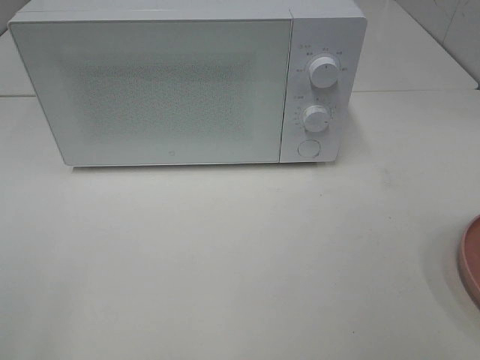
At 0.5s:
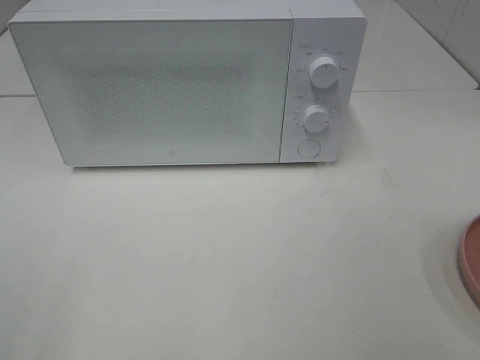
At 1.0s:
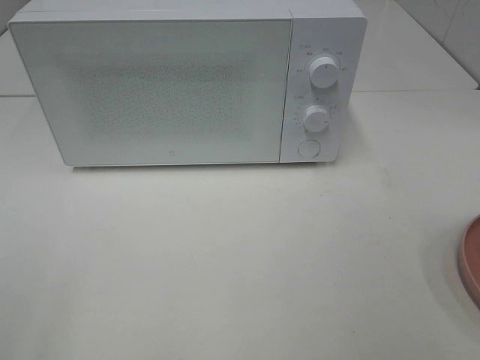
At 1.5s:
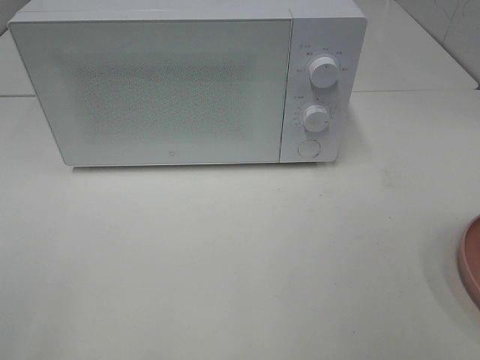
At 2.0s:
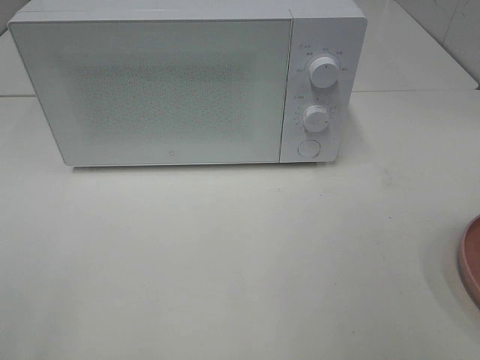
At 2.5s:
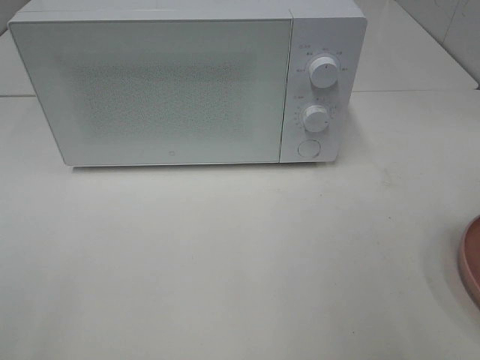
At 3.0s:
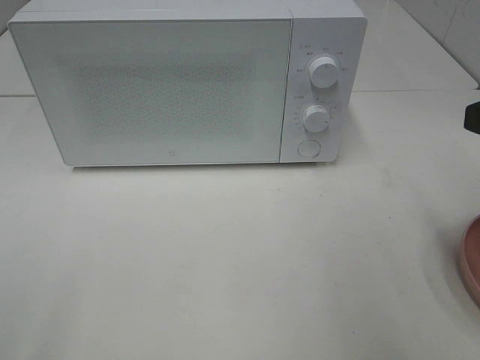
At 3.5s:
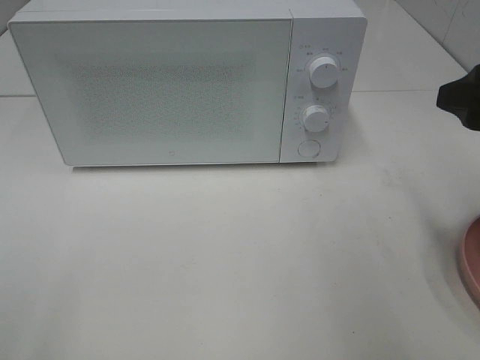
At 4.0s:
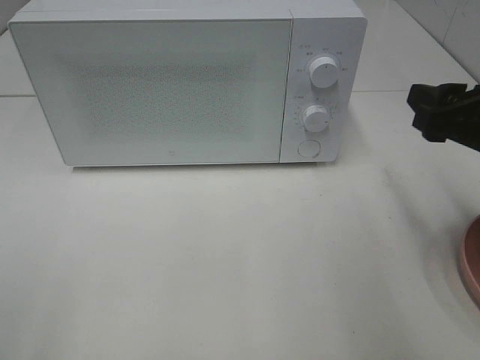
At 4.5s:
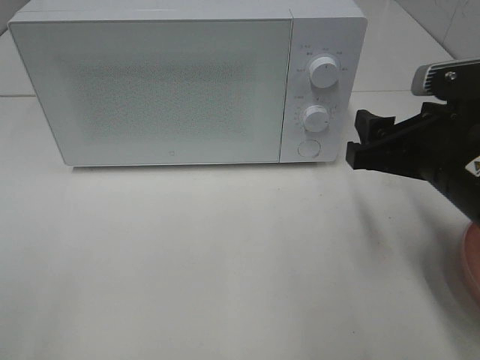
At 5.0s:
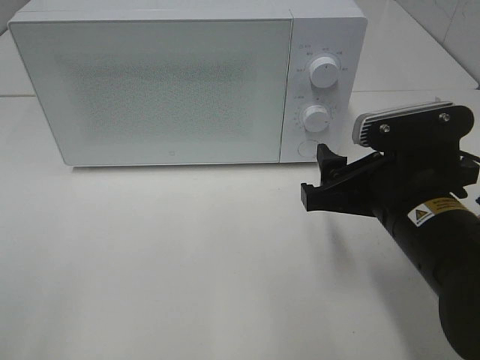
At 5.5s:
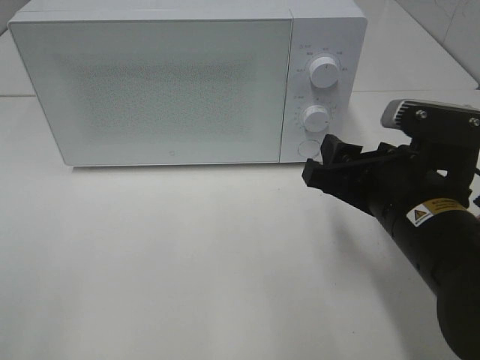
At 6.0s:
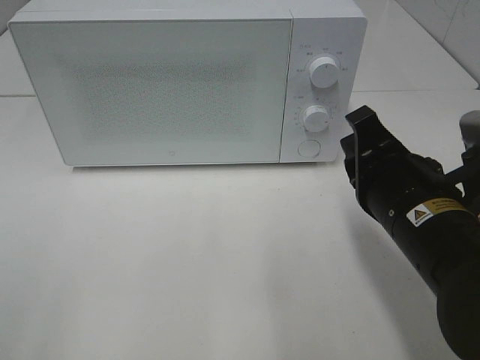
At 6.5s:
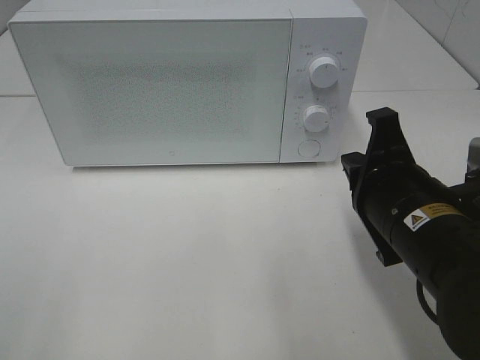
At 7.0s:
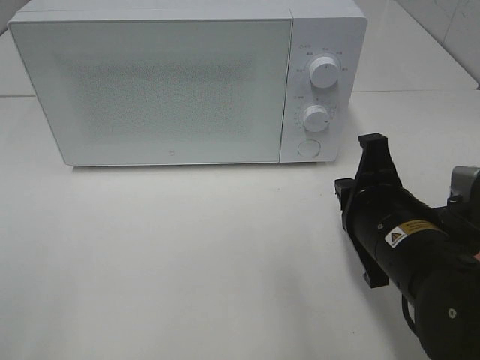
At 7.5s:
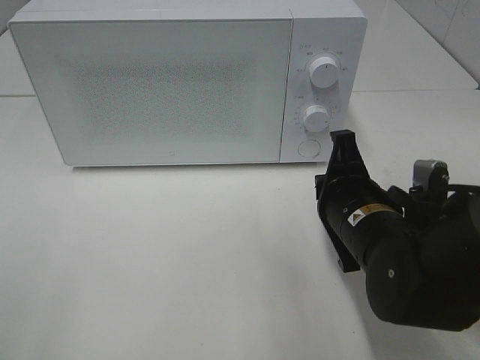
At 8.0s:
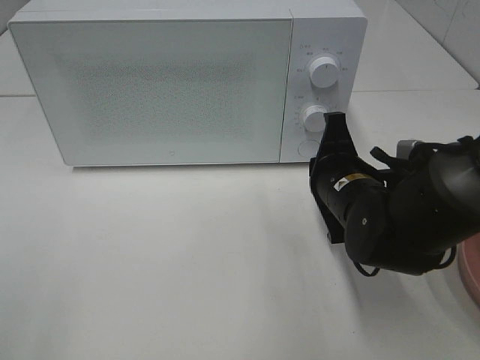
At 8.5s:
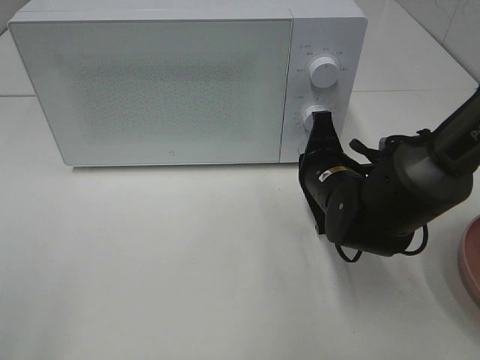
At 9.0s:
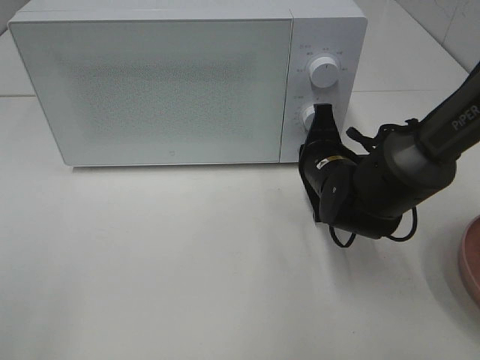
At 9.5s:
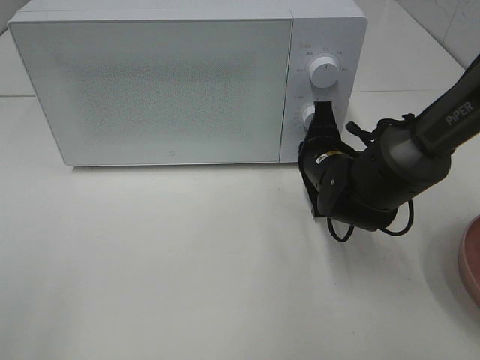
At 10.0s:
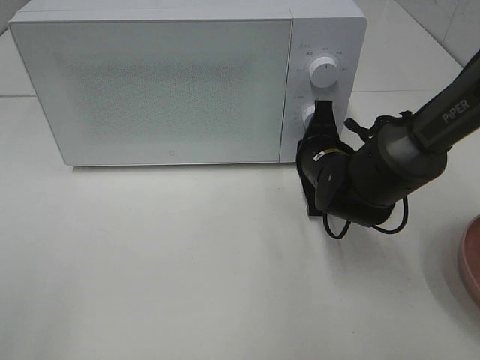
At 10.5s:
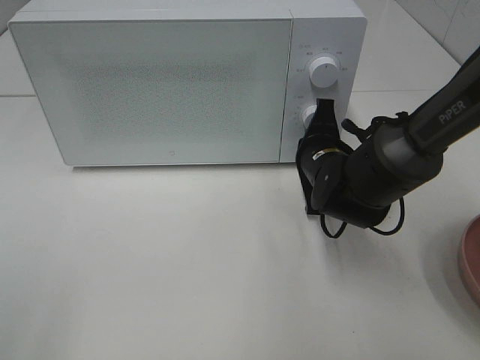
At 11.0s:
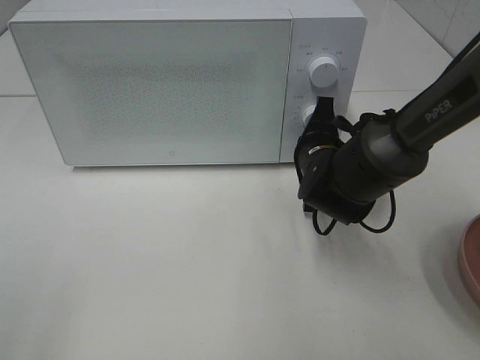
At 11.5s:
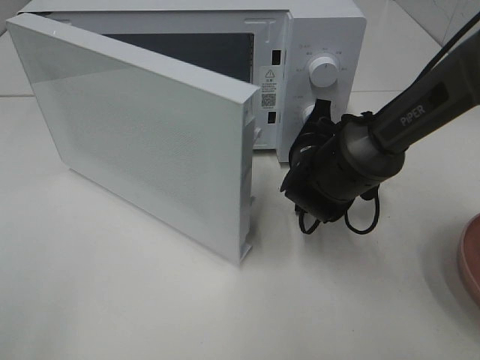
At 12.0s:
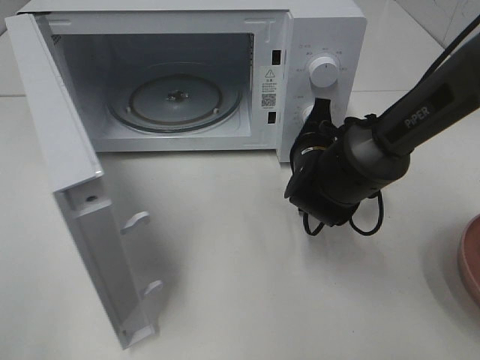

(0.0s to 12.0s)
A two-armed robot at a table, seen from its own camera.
Task of the whole recording: Heat the burger.
2.0s - 4.0s: The right gripper travels forward and downward by some 15 cm.
4.0s - 6.0s: The right gripper moves to the left and downward, some 10 cm, and closes.
6.0s - 8.0s: The right gripper heads forward and downward, covering roughly 10 cm.
8.0s - 10.0s: The right gripper goes about 5 cm forward.

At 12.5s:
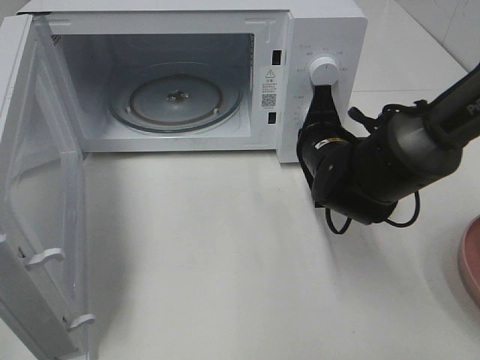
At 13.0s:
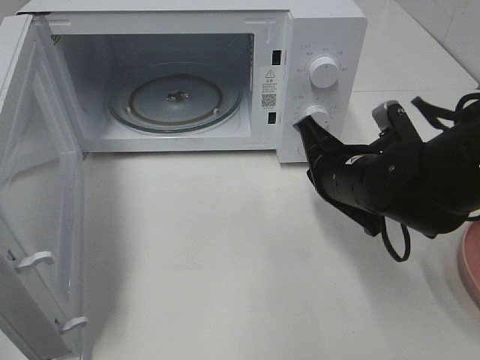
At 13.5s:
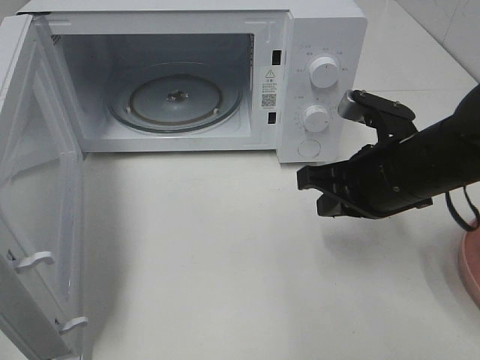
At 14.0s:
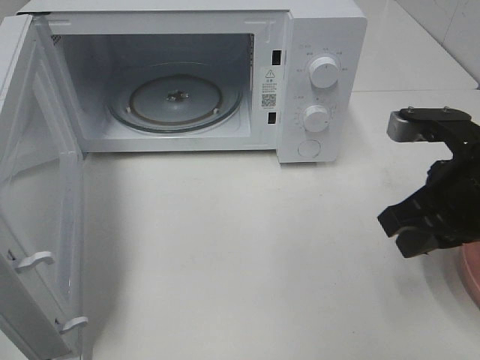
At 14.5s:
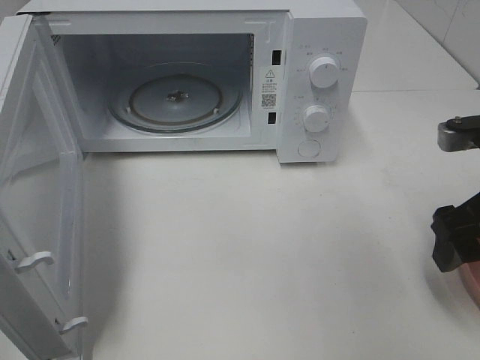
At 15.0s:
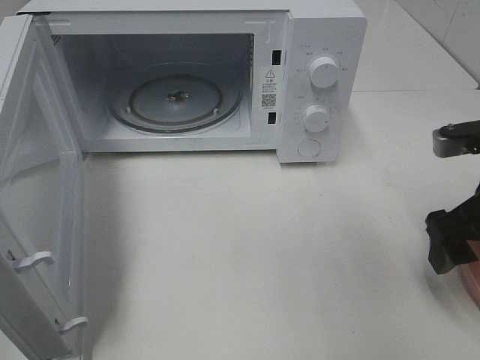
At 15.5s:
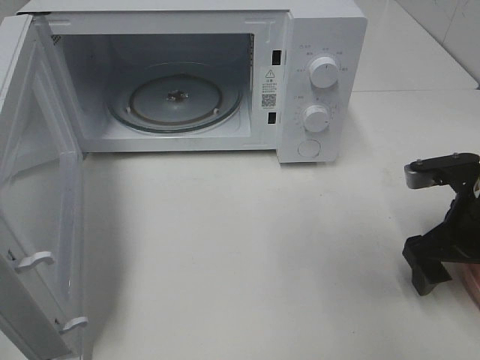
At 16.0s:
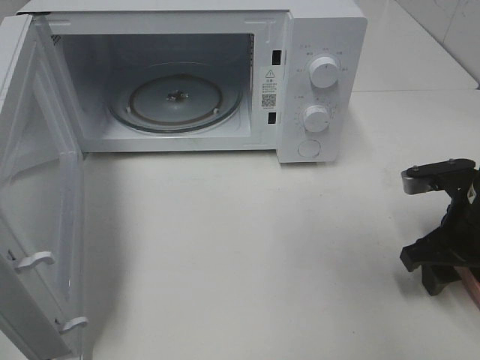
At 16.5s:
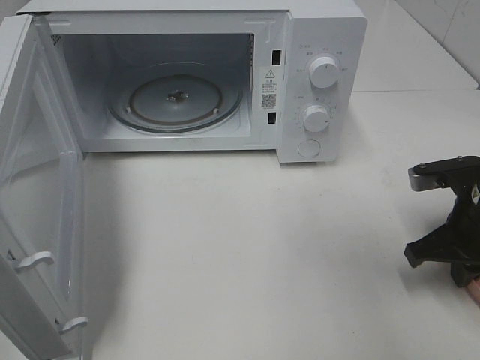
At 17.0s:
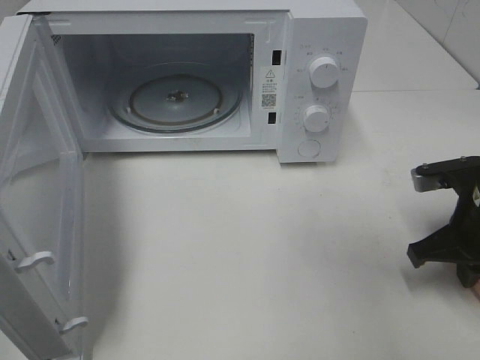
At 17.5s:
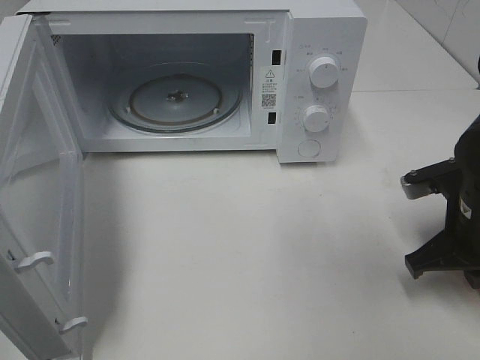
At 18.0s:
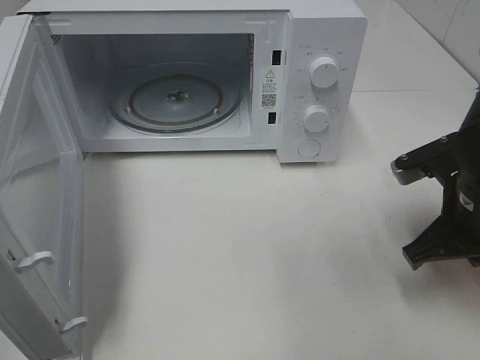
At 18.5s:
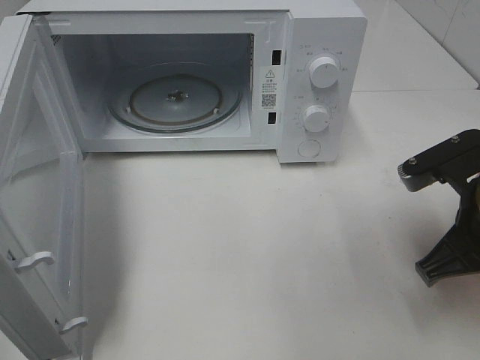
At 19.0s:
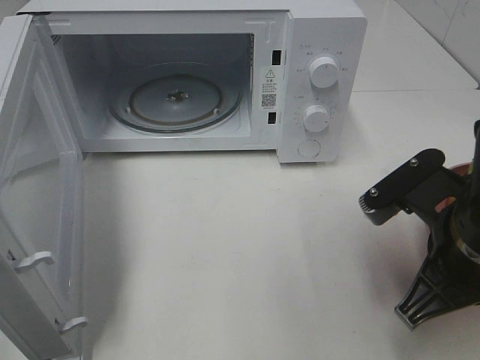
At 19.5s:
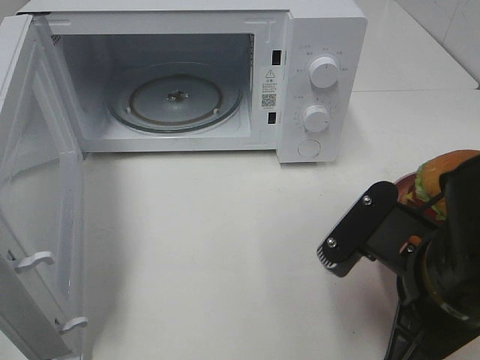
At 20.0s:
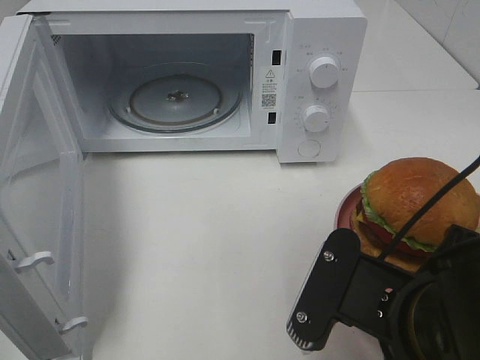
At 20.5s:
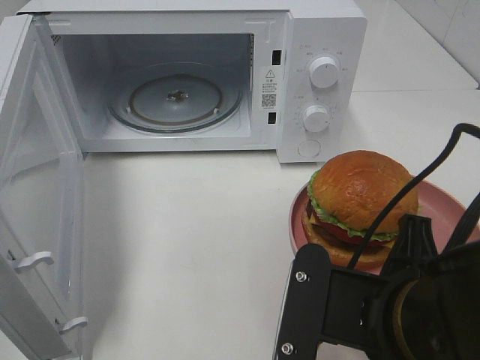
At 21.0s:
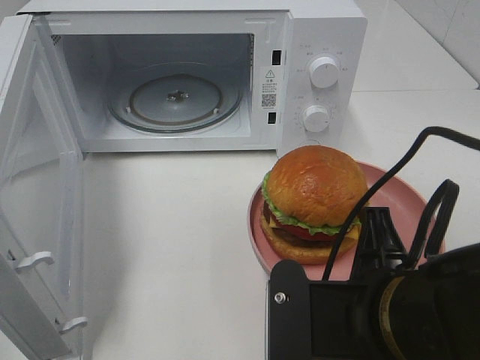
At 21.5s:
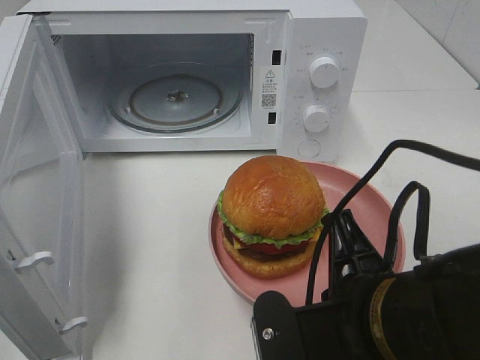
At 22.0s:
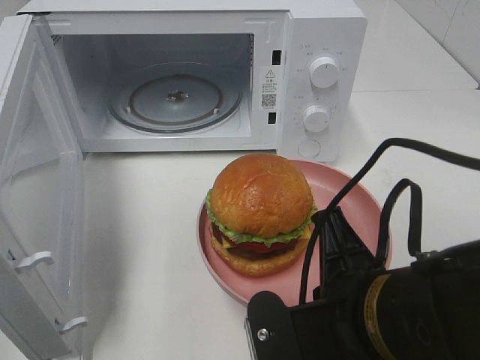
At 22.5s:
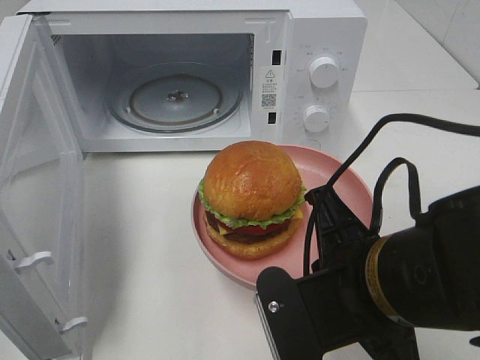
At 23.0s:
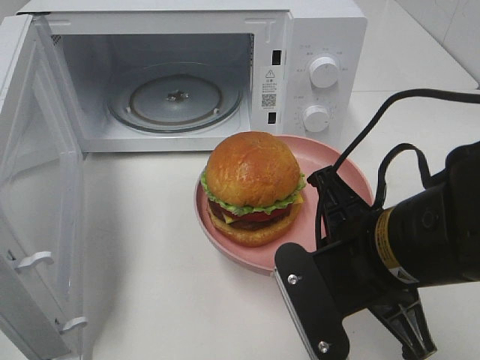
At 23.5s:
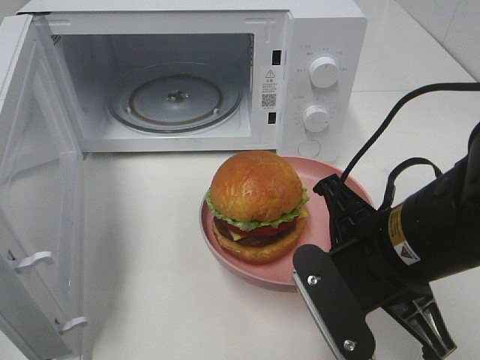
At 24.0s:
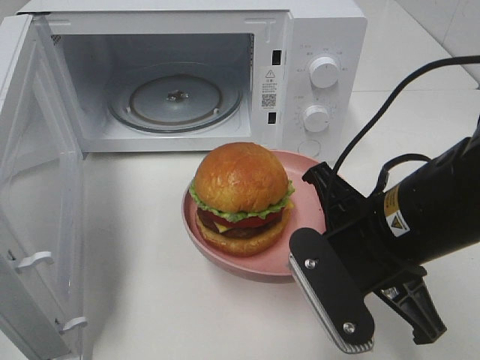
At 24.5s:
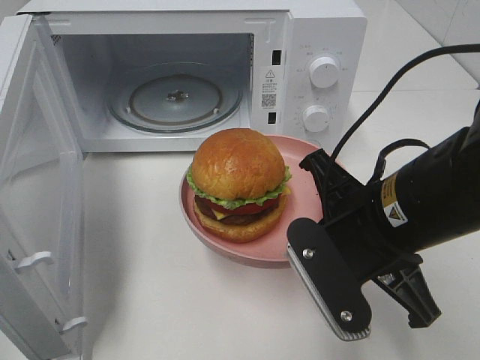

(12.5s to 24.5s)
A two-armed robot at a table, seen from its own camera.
Task of the whole recording: Heat the burger.
Step, 12.5s - 16.5s: Right hand: grab the plate with the hamburger.
12.5s - 14.5s: The right gripper heads to the right, backward and upward, covering about 20 cm, and opens up.
14.5s - 16.5s: The right gripper goes approximately 10 cm downward, and closes its fingers.
16.5s - 18.5s: The right gripper shifts some 5 cm upward.
18.5s - 20.5s: The right gripper shifts approximately 15 cm to the left and backward.
22.5s - 24.5s: The right gripper is displaced forward by about 5 cm.

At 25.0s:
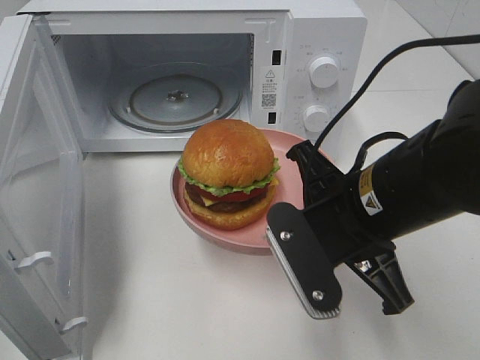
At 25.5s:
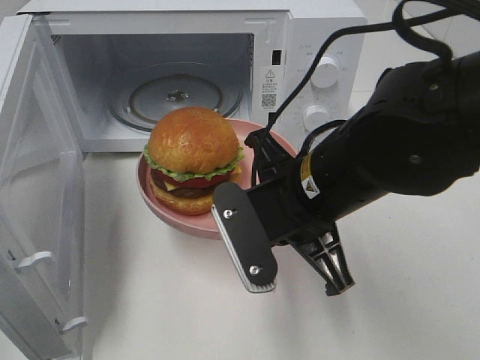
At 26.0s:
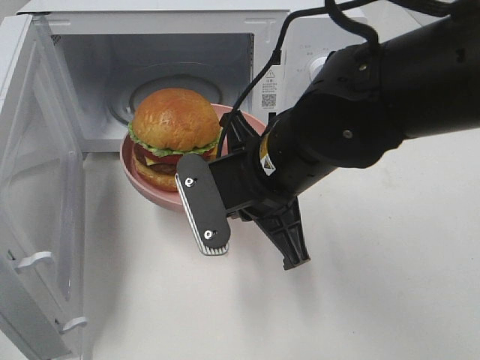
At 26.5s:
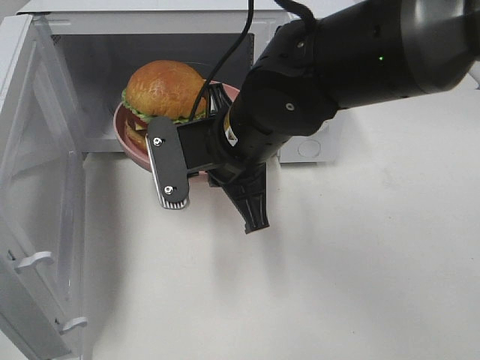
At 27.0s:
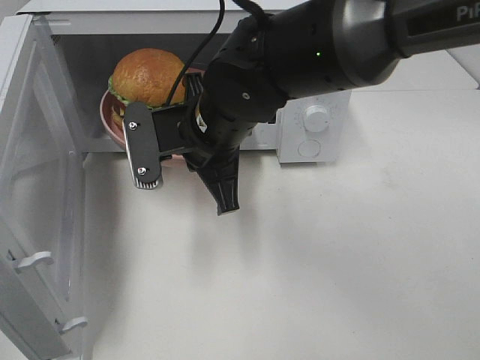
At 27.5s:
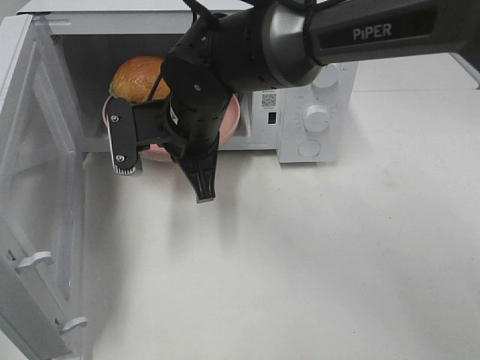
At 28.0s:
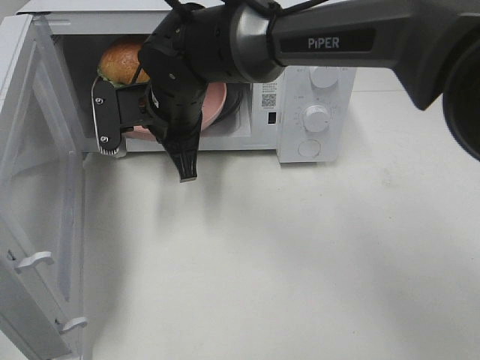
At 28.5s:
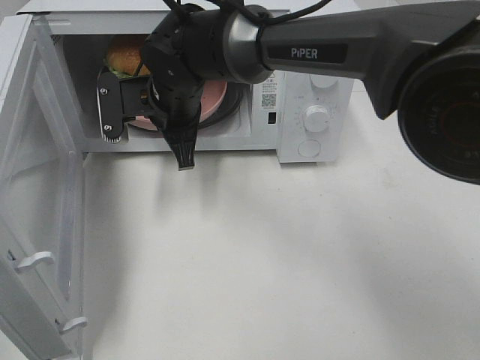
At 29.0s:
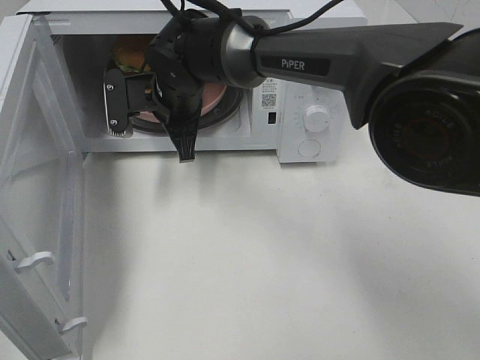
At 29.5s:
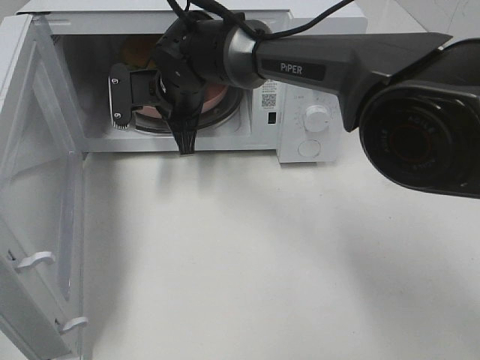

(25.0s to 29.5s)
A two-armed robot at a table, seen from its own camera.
Task of the whole recording: Heat the burger.
25.0s - 27.0s: The right gripper travels to the left and forward by some 15 cm.
27.0s - 29.5s: The right gripper shifts roughly 15 cm forward and to the left.
